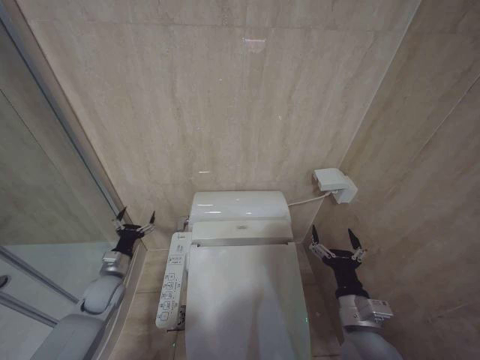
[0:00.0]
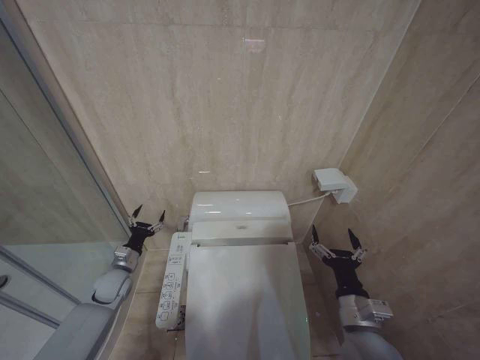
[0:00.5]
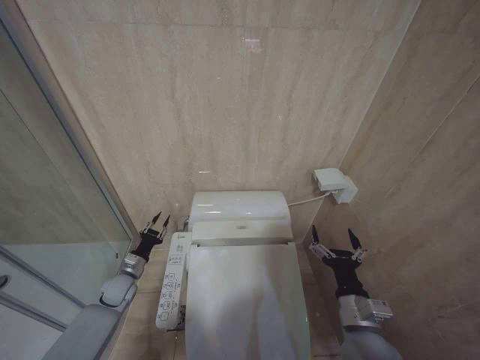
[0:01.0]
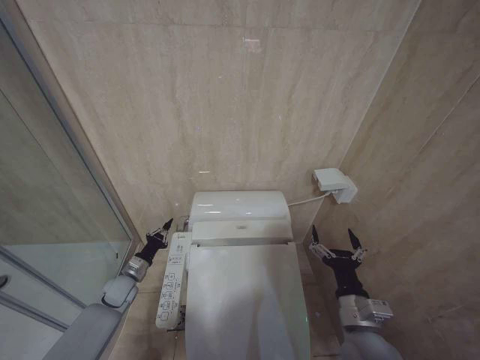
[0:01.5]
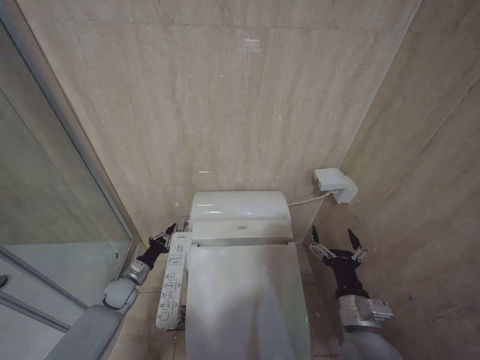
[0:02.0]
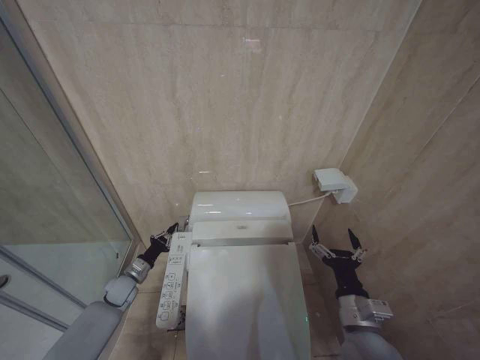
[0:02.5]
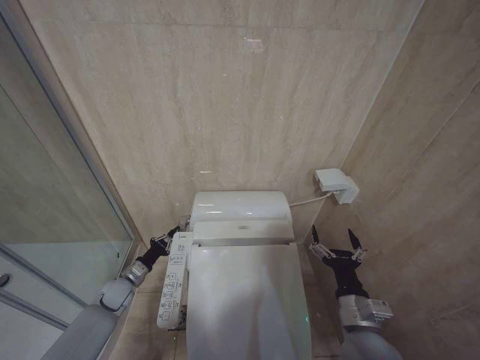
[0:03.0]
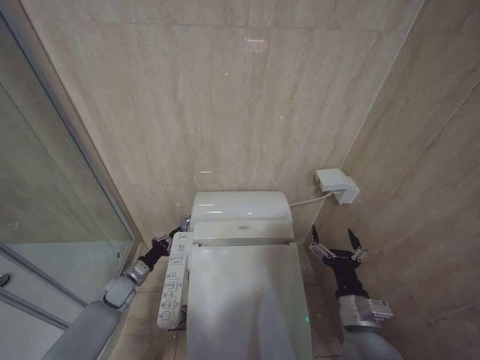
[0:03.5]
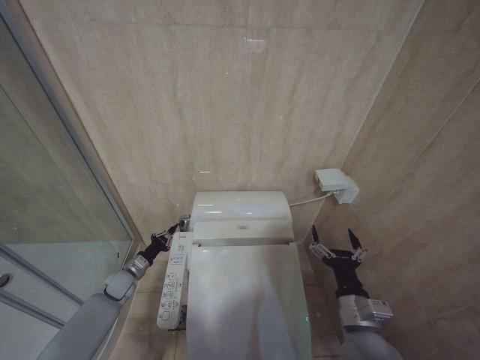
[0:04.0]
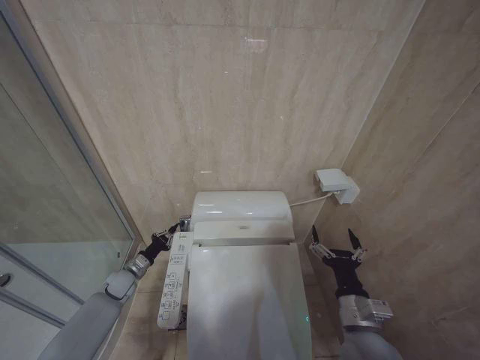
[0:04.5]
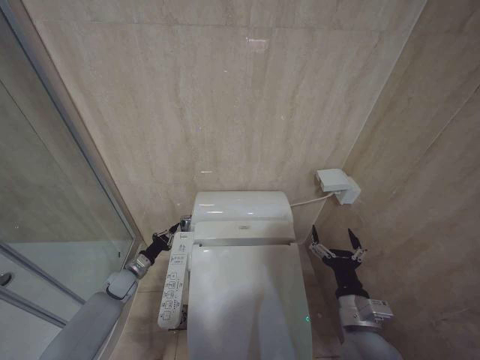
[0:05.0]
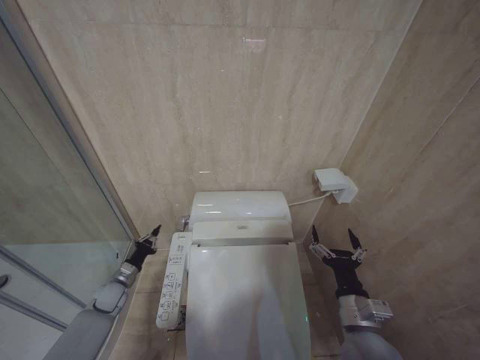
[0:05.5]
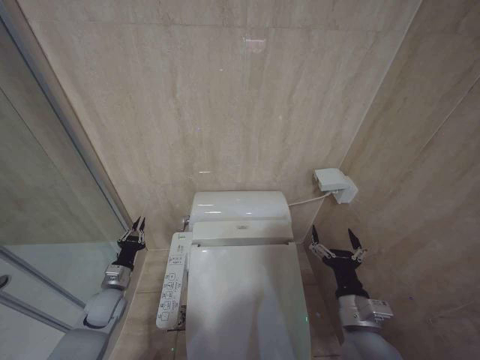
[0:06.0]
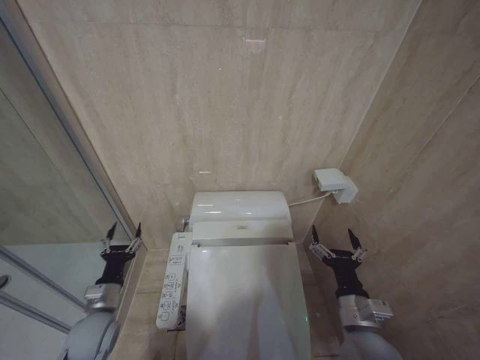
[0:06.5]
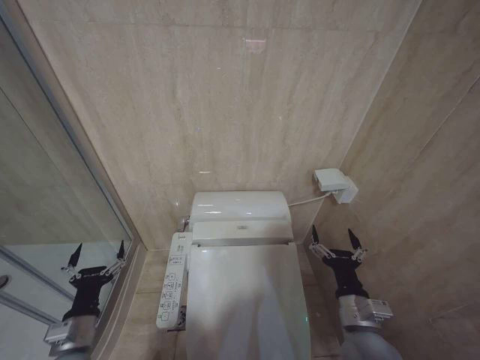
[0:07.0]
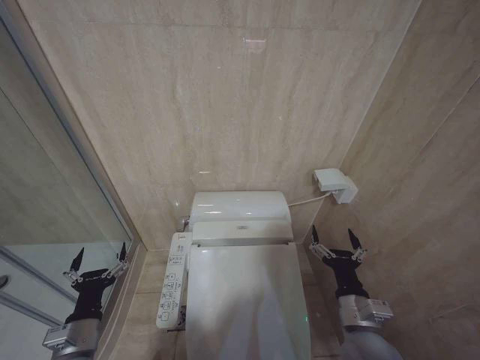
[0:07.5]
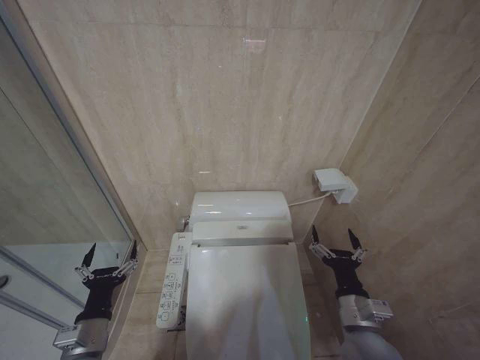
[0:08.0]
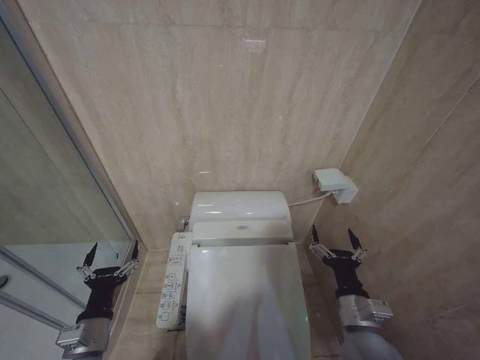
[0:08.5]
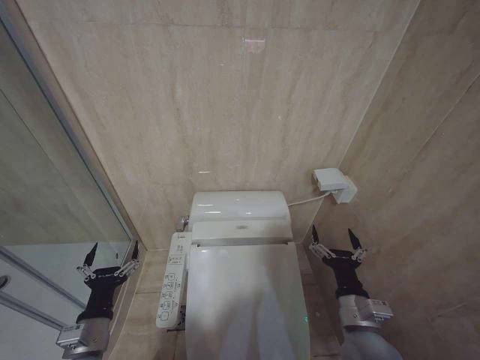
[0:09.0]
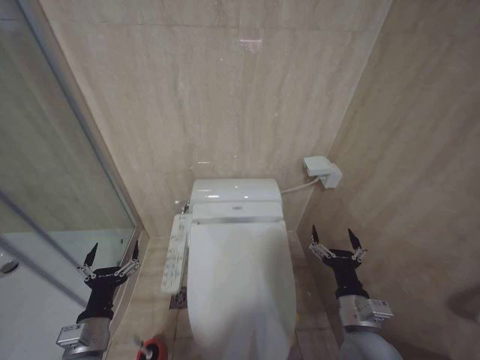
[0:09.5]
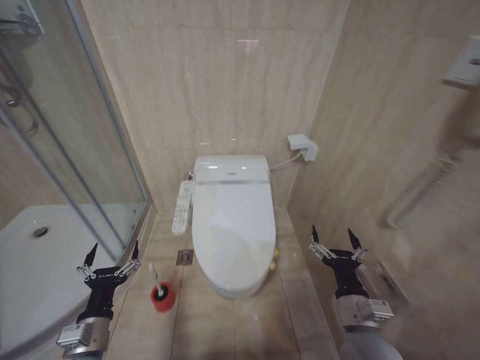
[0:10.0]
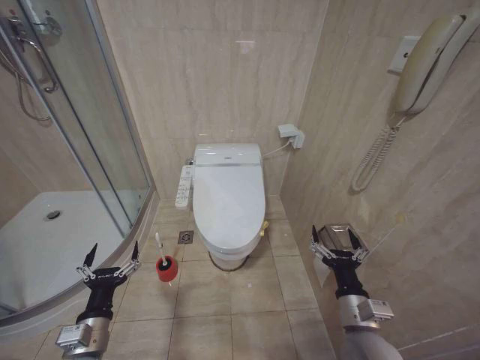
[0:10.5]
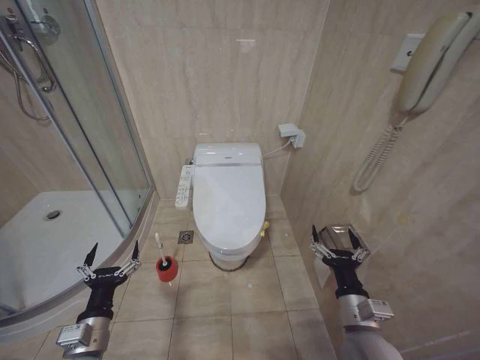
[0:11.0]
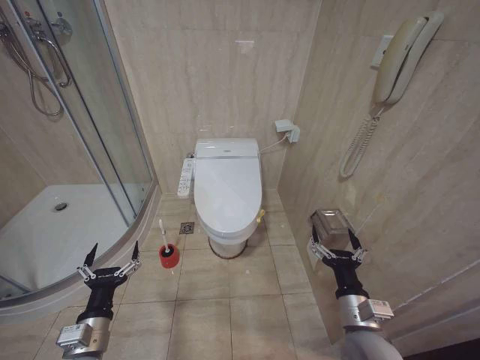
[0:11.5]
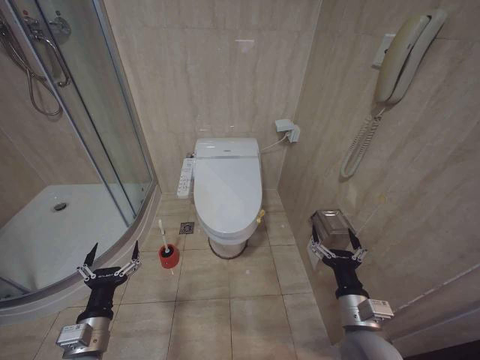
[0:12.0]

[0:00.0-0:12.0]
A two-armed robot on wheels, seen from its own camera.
Task of the whole recording: Open the toilet lid, clean the toilet bowl with a toilet brush, close the toilet lid, and flush.
0:00.0 to 0:02.0: The left gripper travels downward by about 10 cm, and closes up.
0:02.0 to 0:04.0: The grippers stay close to where they were, moving slightly.
0:04.0 to 0:06.0: The left gripper moves backward, about 5 cm.
0:06.0 to 0:08.0: The left gripper travels backward and upward by roughly 20 cm, and opens.

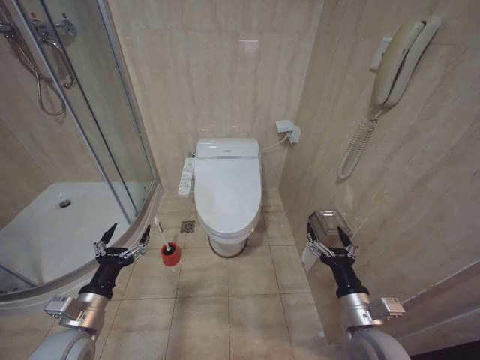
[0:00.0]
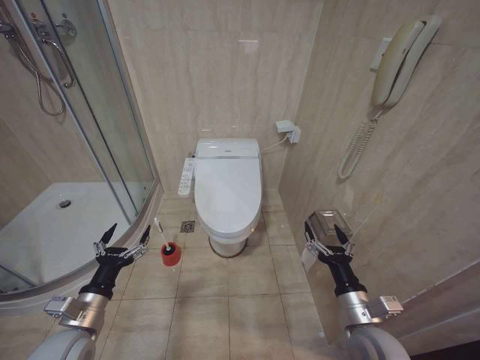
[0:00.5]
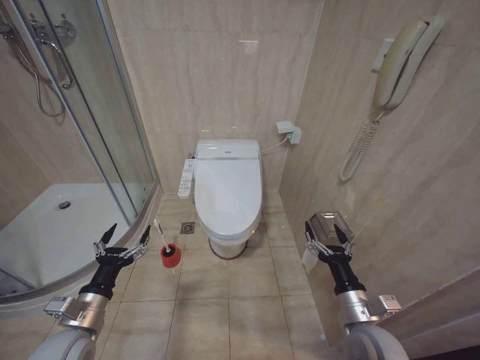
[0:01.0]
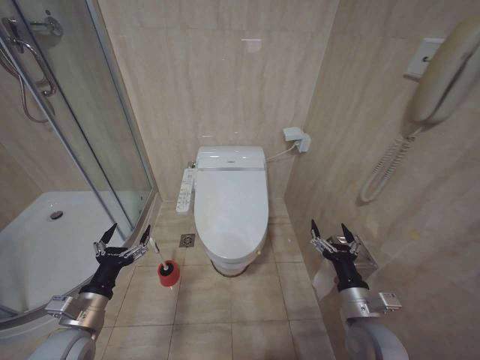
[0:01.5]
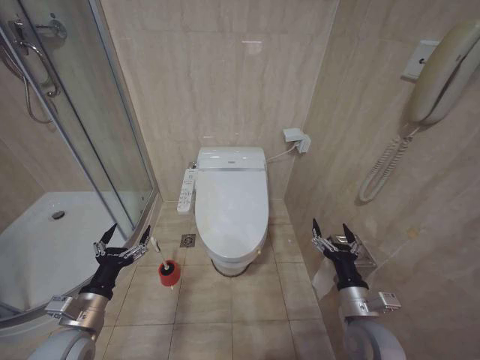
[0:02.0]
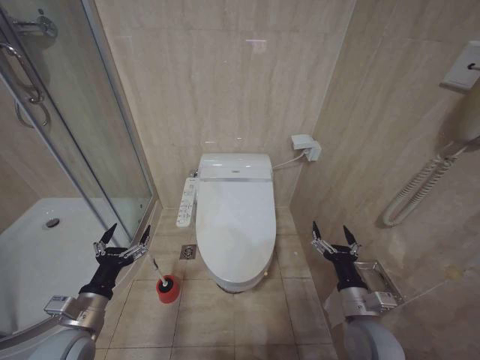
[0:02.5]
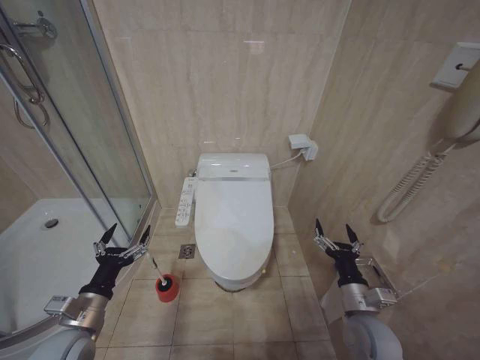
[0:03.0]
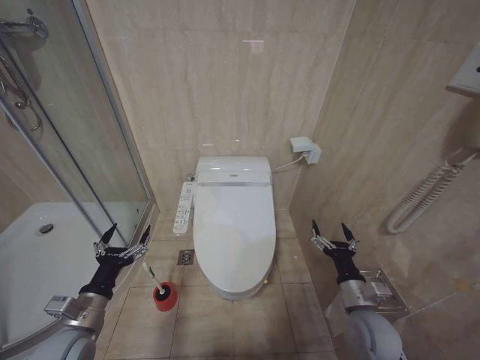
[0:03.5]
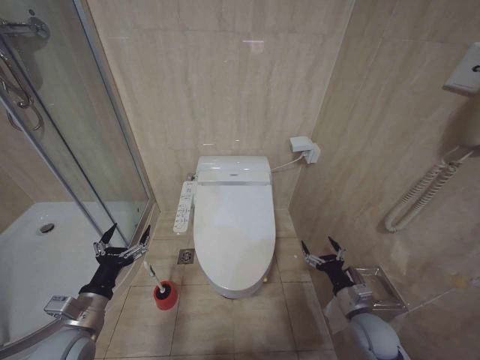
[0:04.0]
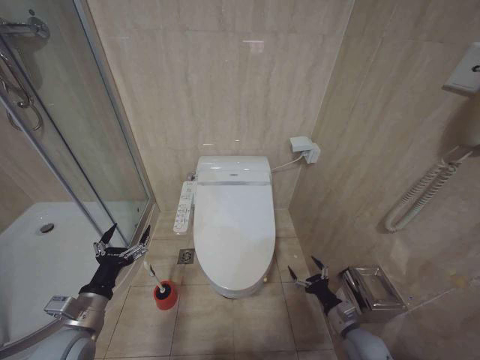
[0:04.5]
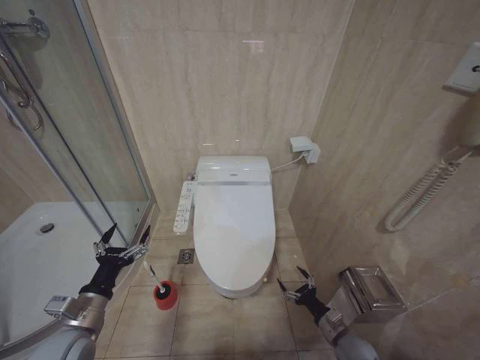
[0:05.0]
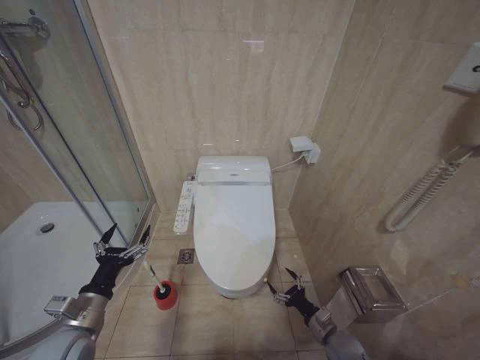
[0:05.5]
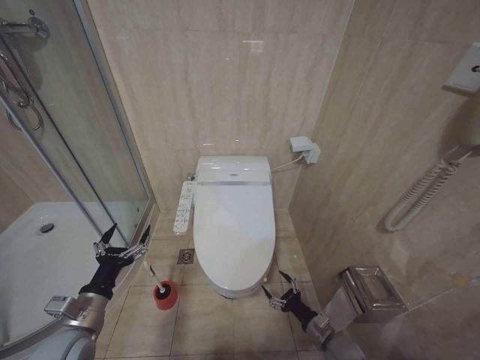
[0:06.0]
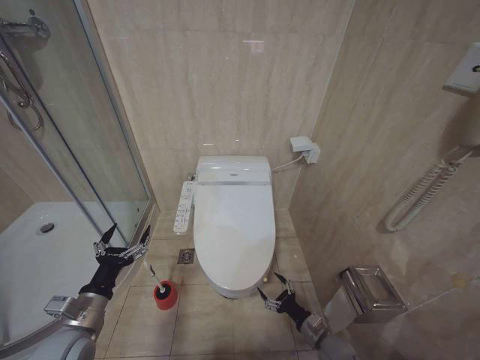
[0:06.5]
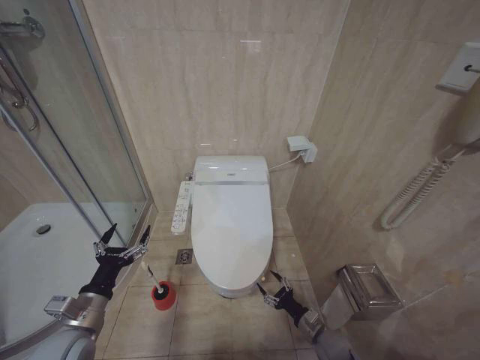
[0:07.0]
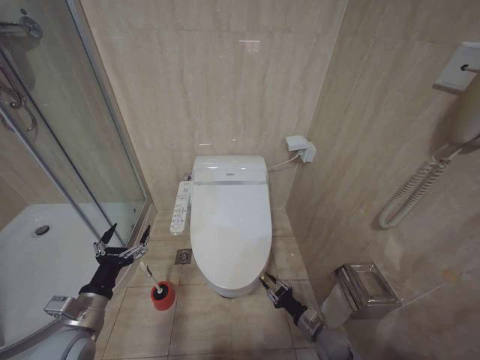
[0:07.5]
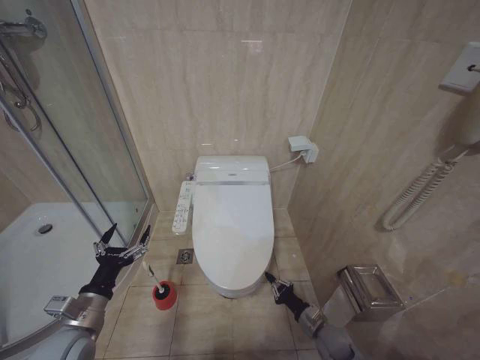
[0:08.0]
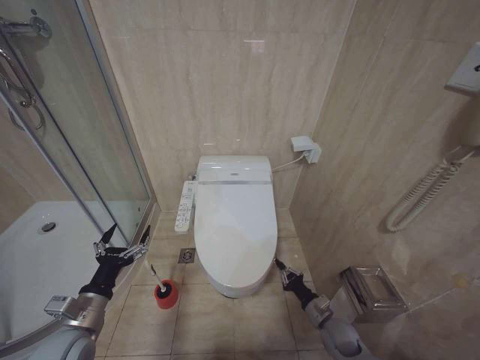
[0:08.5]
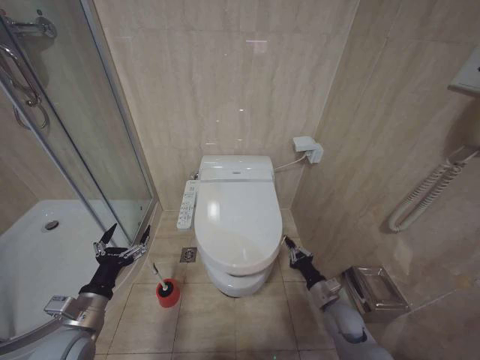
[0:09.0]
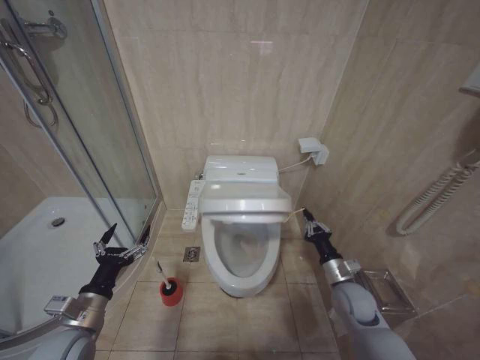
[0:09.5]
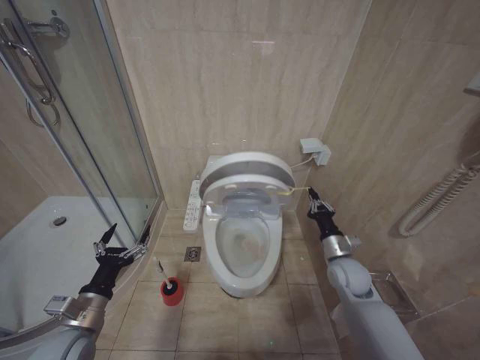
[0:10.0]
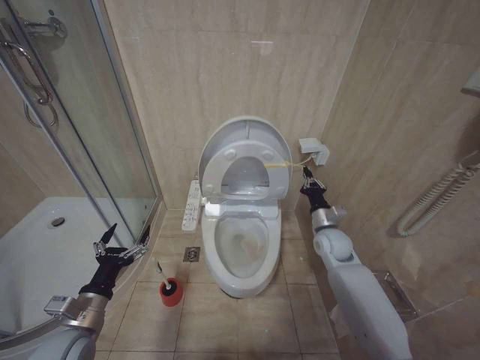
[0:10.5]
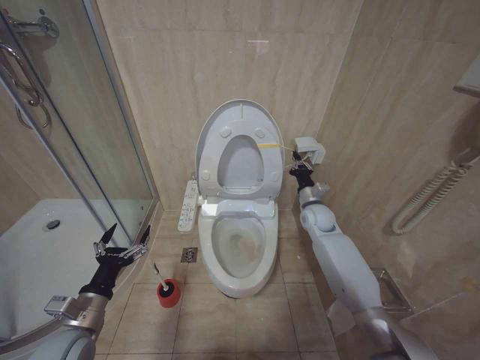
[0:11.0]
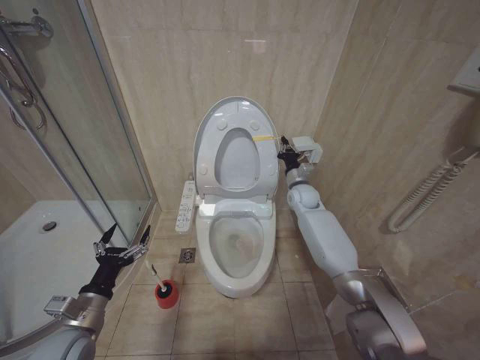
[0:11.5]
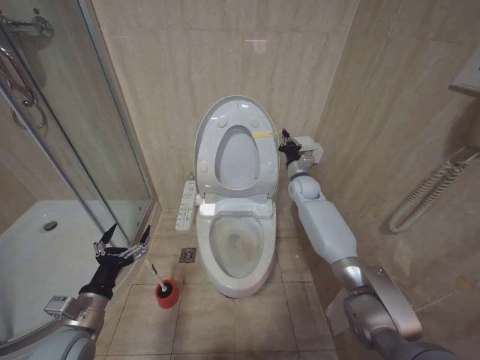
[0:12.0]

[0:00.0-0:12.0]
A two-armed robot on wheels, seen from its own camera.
Task of the whole recording: Open the toilet lid, clean the toilet bowl with a toilet brush, close the toilet lid, and flush.
0:02.0 to 0:04.0: The right gripper moves downward and to the right, some 10 cm.
0:04.0 to 0:06.0: The right gripper travels downward by some 10 cm.
0:06.0 to 0:08.0: The right gripper closes up.
0:08.0 to 0:10.0: The right gripper goes about 20 cm upward.
0:10.0 to 0:12.0: The right gripper heads forward and upward, covering roughly 30 cm.

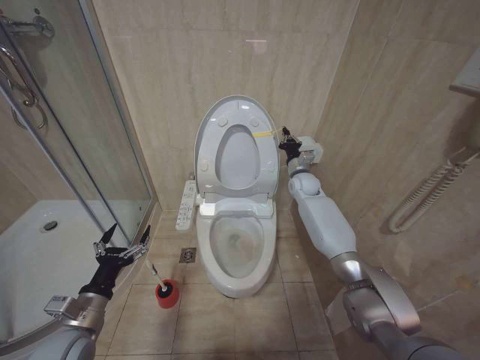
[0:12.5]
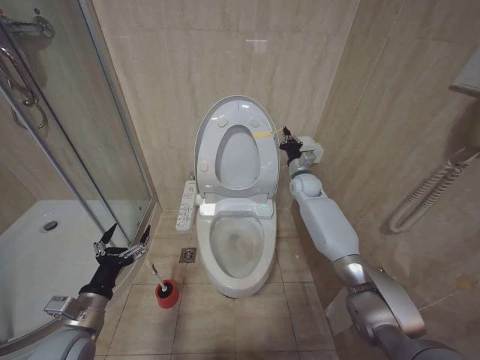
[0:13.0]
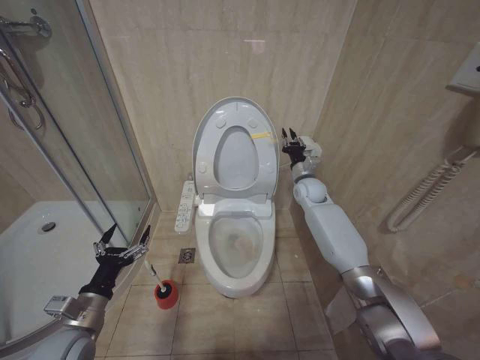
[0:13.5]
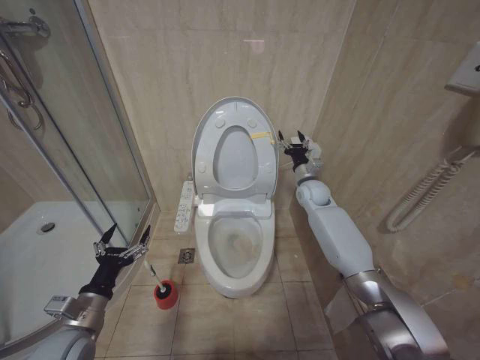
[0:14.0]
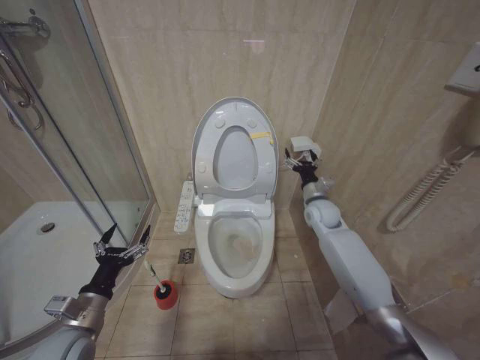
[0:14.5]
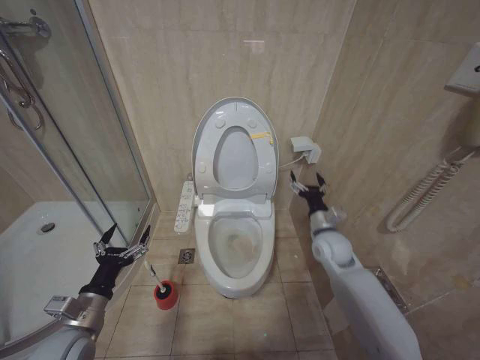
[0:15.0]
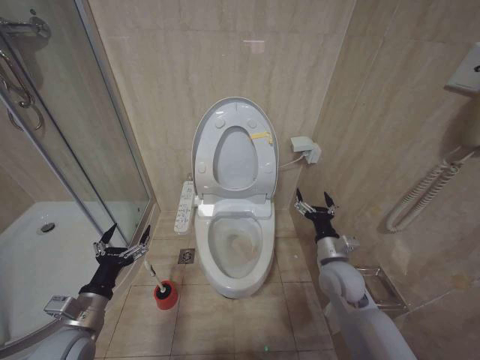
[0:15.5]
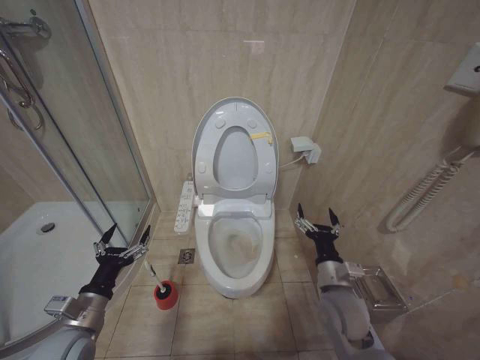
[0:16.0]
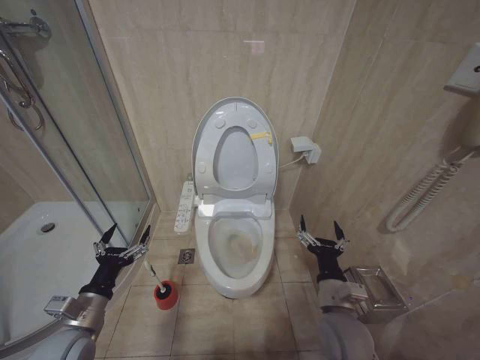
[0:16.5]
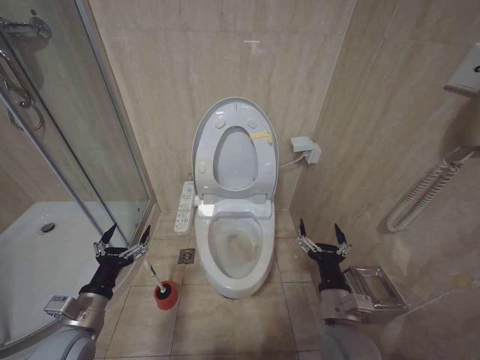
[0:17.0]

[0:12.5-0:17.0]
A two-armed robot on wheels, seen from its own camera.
Task of the whole recording: Open the toilet lid, clean the toilet bowl with a toilet brush, close the toilet lid, and flush.
0:12.5 to 0:14.5: The right gripper shifts about 10 cm backward, and opens up.
0:14.5 to 0:17.0: The right gripper shifts some 30 cm backward.
